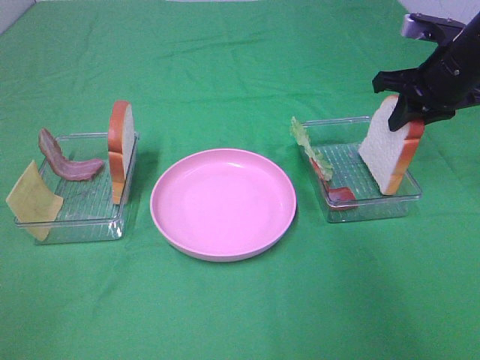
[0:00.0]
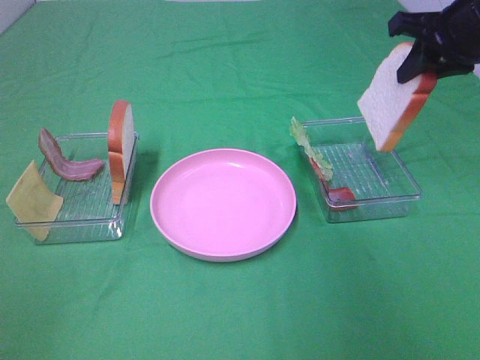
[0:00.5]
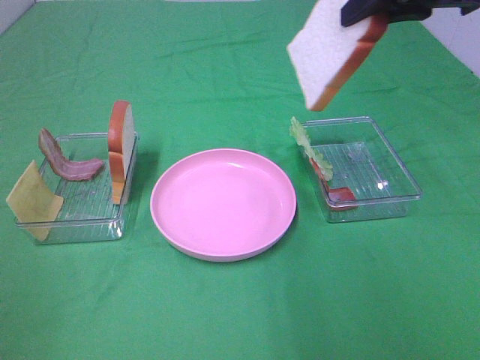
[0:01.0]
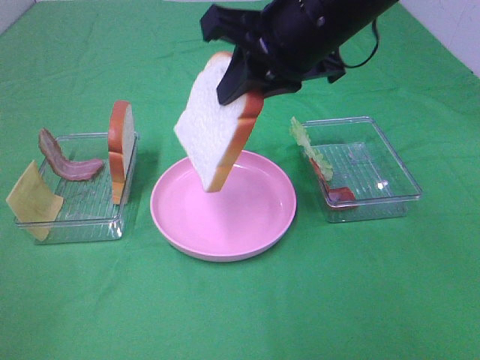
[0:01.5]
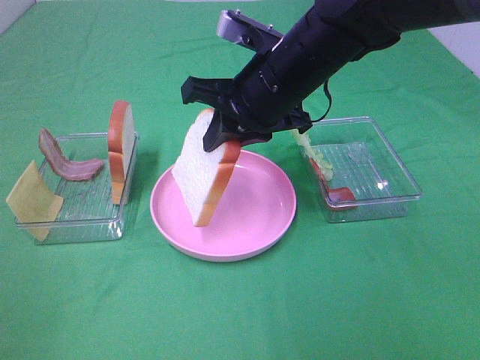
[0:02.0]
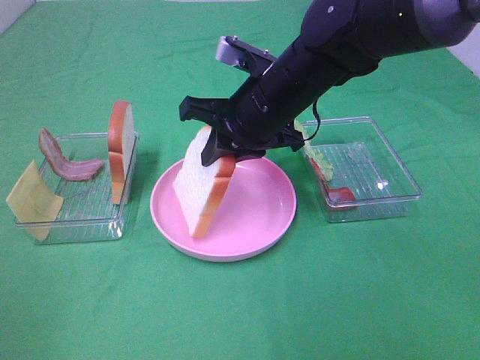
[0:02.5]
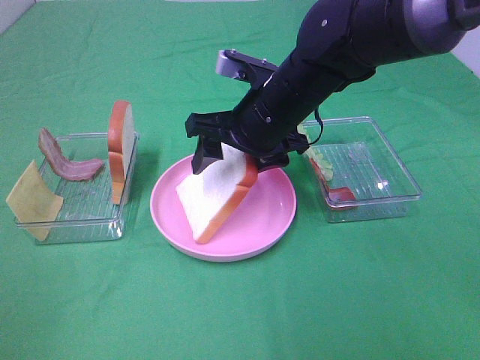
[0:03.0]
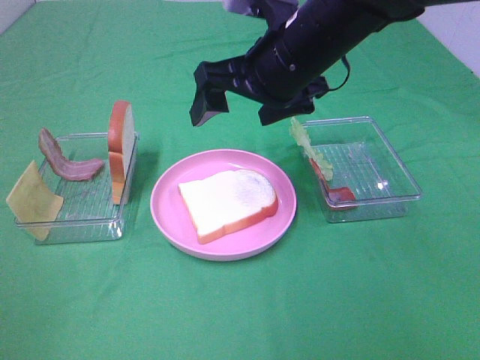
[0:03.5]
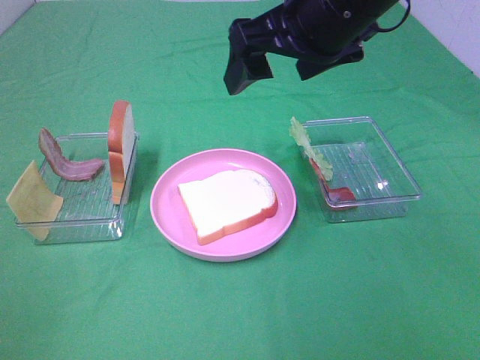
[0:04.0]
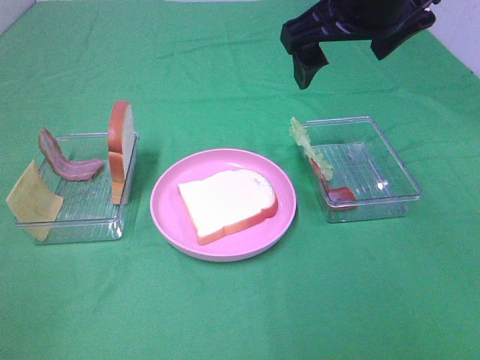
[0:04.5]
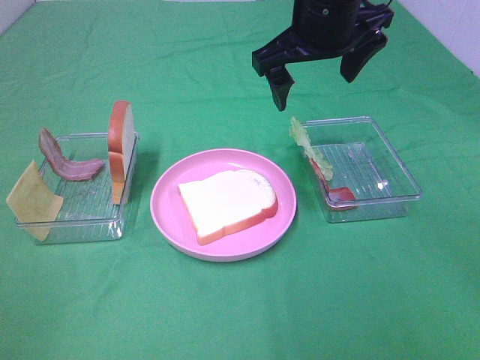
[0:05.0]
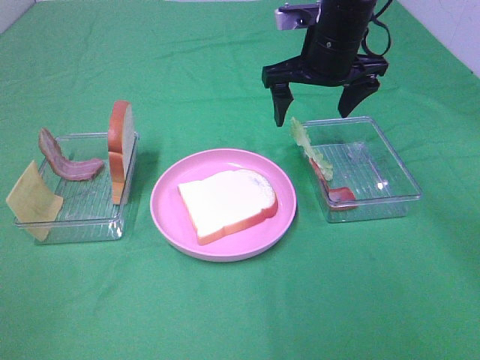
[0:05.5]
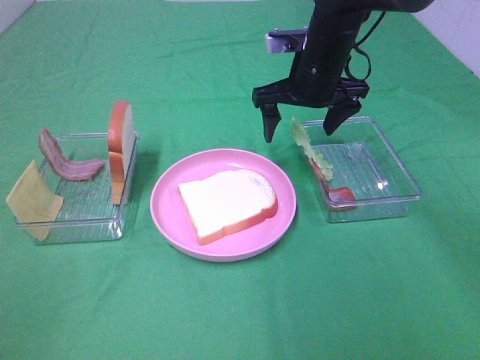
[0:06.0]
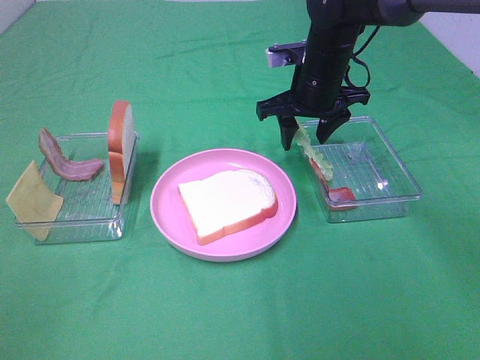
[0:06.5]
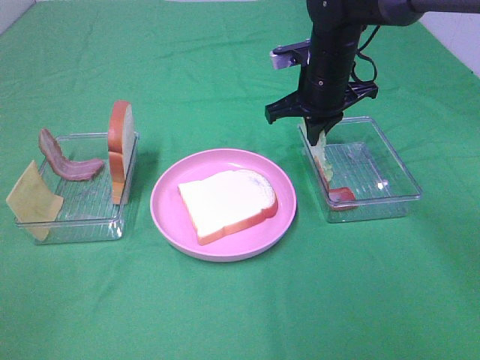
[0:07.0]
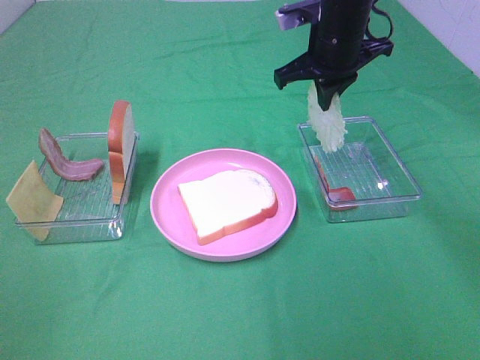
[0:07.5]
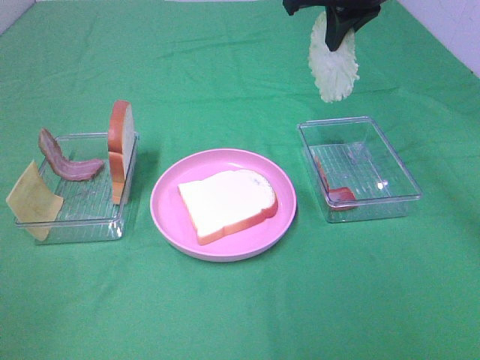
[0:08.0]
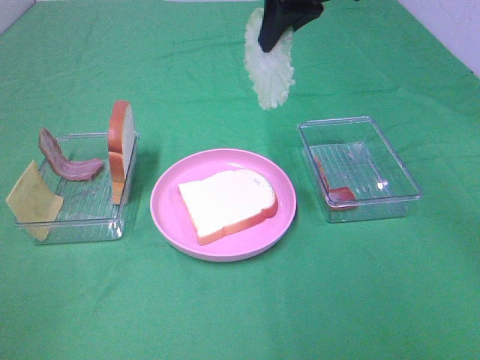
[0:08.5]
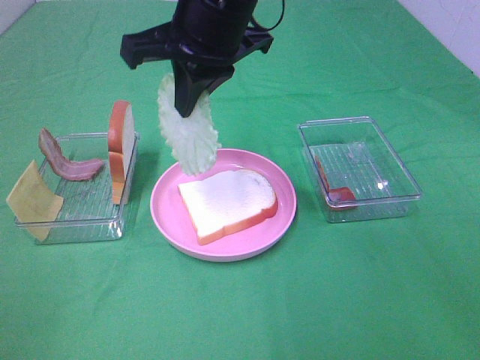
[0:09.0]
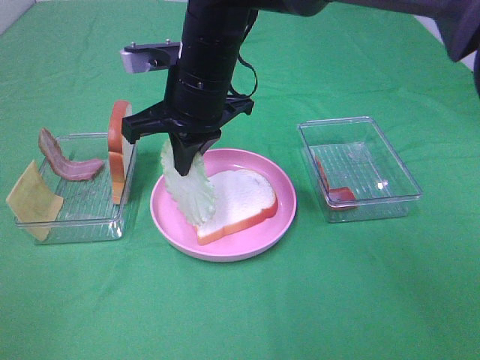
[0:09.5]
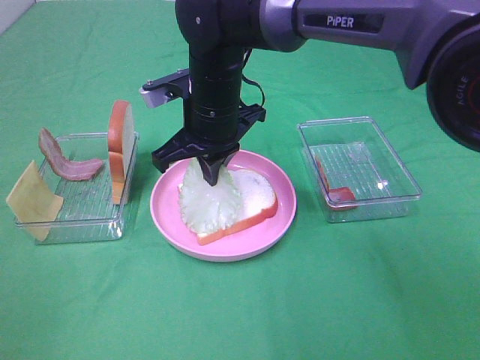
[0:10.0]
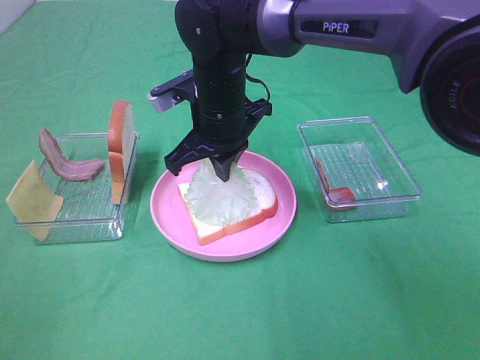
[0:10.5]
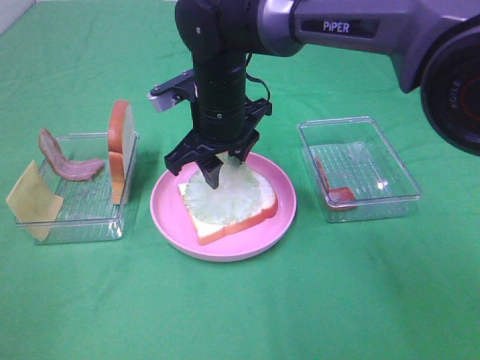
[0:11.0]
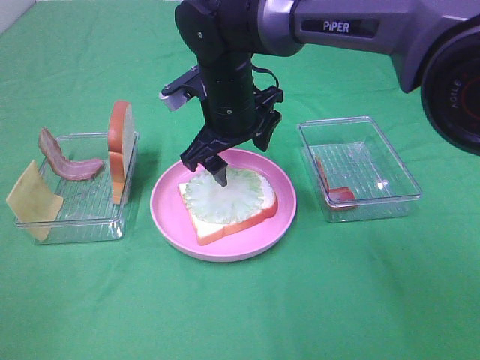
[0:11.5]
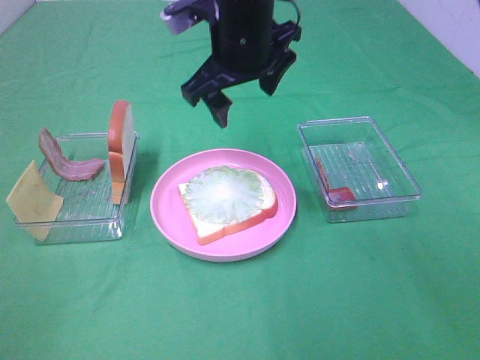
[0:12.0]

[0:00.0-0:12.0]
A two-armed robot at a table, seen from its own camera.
Task of the whole recording: Make sandwiches.
Step, 0:00.0 to 0:03.5: Right hand:place the bread slice on the plate.
Step, 0:04.0 to 0:06.5: Right hand:grab the lettuce slice.
Step, 0:07.0 to 0:11.0: Right hand:place the lettuce slice on the bread slice.
0:00.0 to 0:02.0: The right gripper heads to the left, covering some 20 cm.
0:02.0 to 0:04.0: The right gripper travels upward by approximately 10 cm, and opens.
0:04.0 to 0:06.0: The right gripper travels forward and downward by roughly 20 cm.
0:06.0 to 0:08.0: The right gripper shifts roughly 15 cm upward, and closes its fingers.
0:08.0 to 0:10.0: The right gripper is displaced to the left and downward by some 20 cm.
0:10.0 to 0:12.0: The right gripper heads upward, covering roughly 10 cm, and opens up.

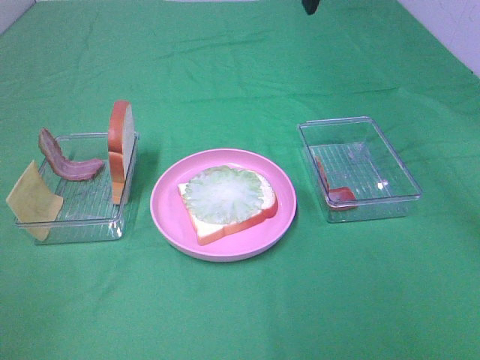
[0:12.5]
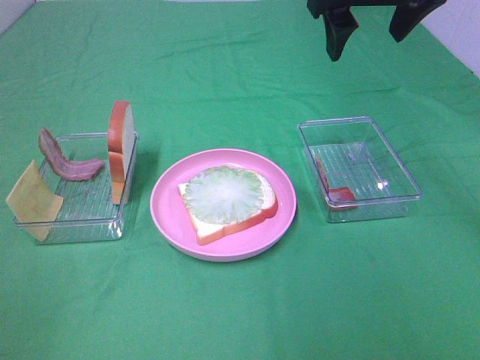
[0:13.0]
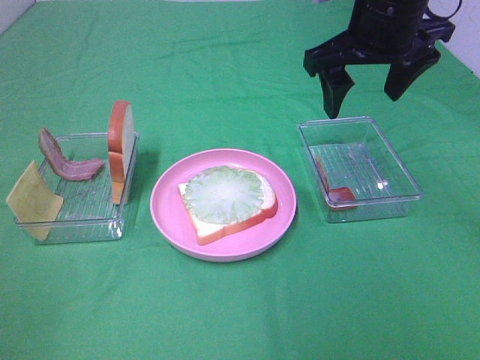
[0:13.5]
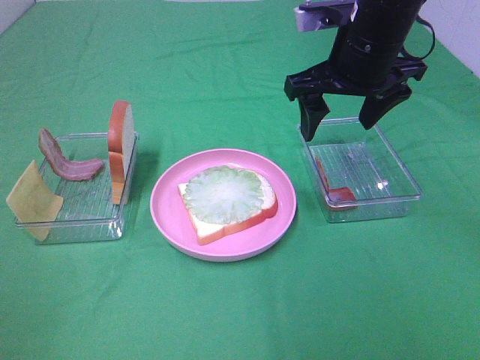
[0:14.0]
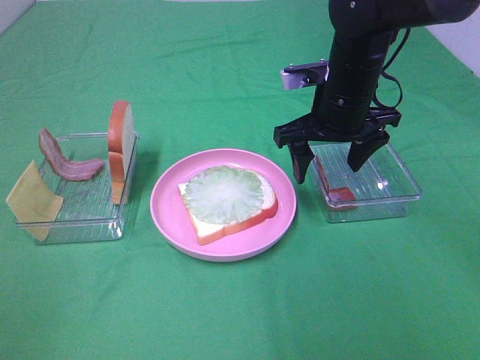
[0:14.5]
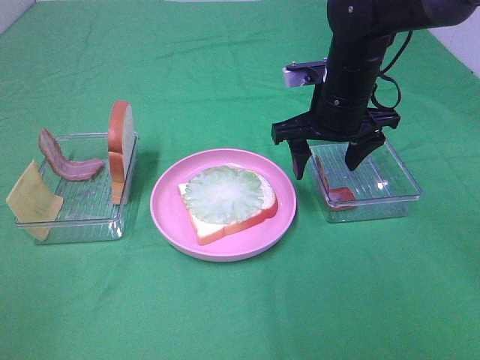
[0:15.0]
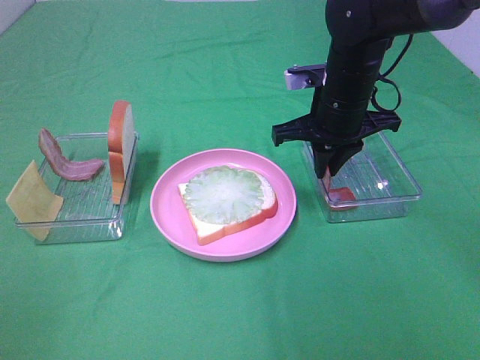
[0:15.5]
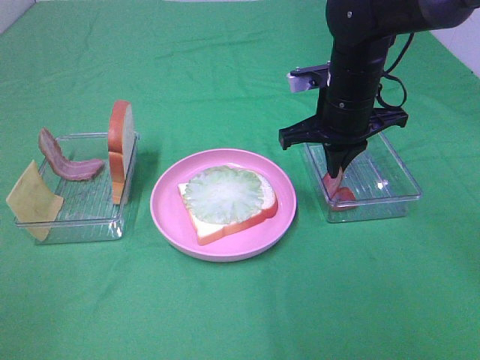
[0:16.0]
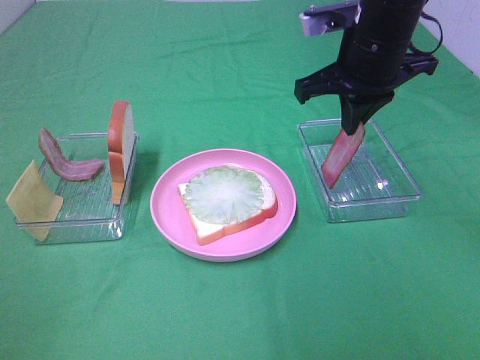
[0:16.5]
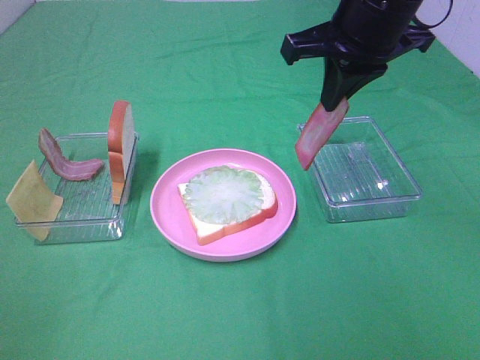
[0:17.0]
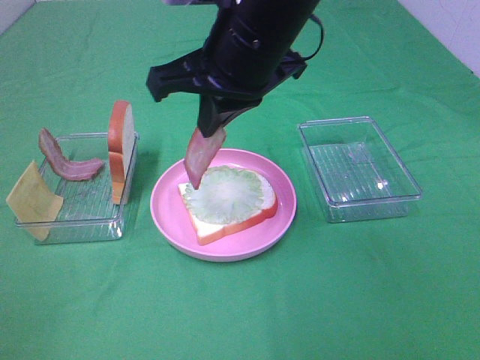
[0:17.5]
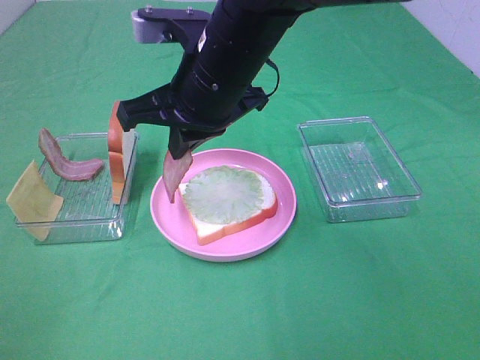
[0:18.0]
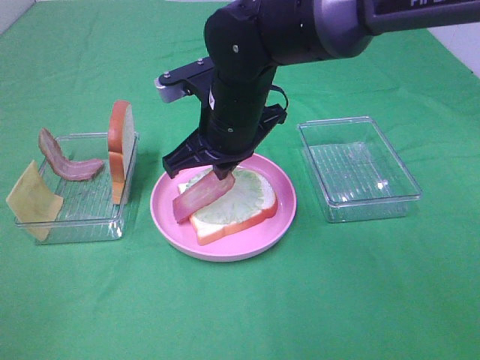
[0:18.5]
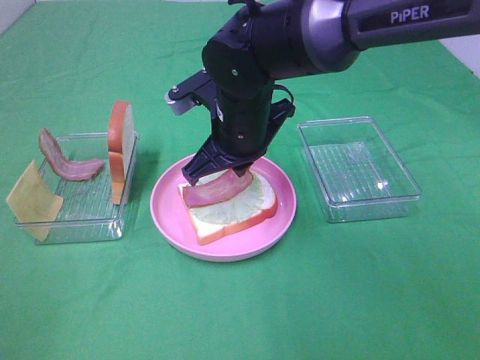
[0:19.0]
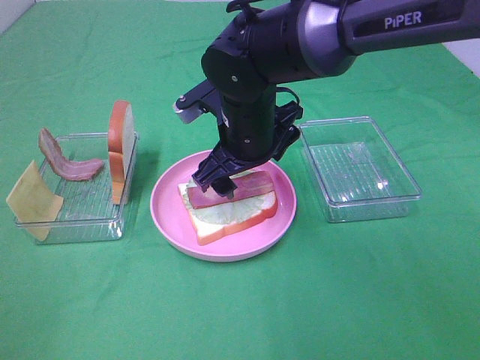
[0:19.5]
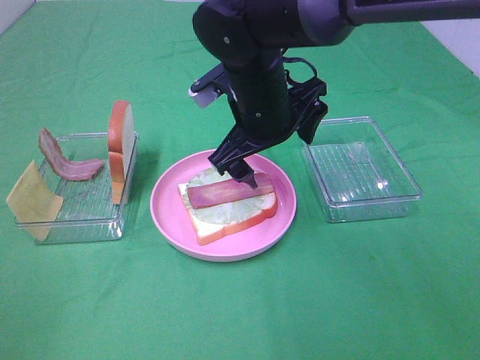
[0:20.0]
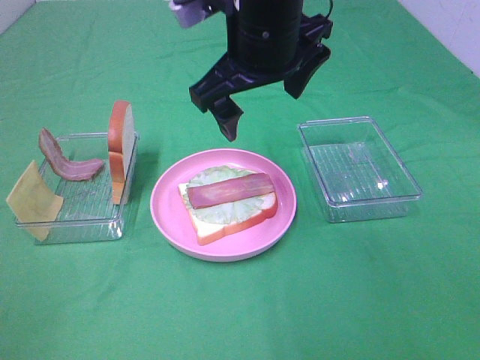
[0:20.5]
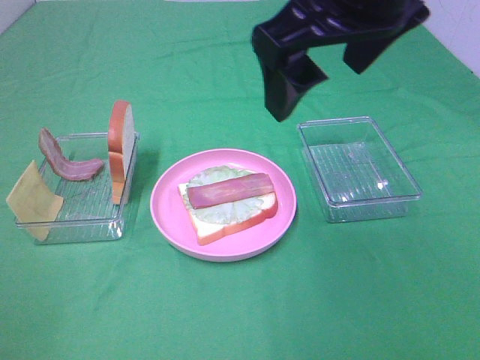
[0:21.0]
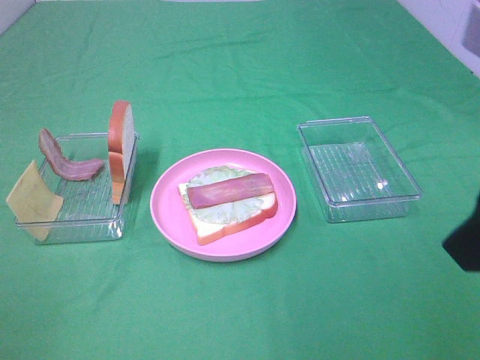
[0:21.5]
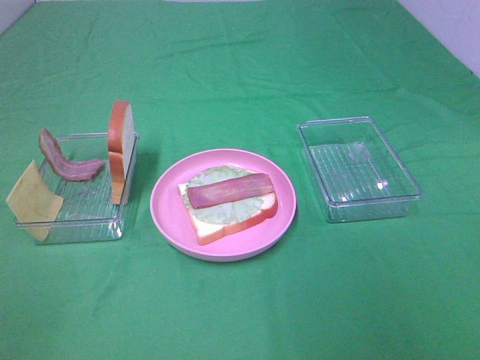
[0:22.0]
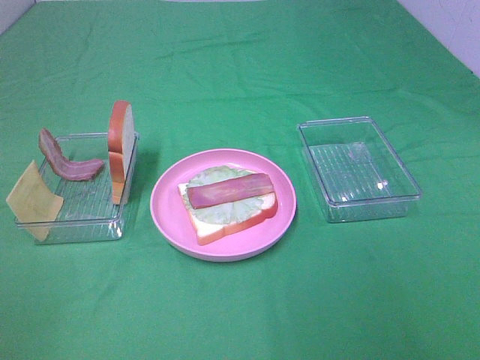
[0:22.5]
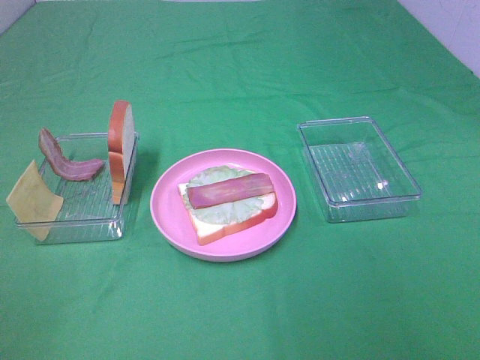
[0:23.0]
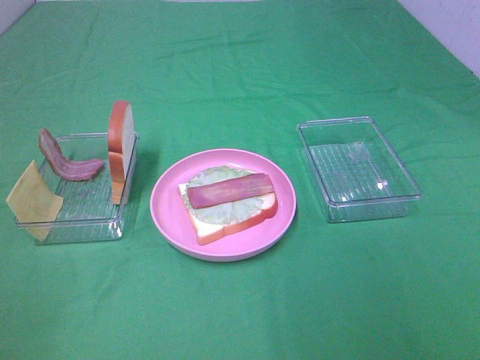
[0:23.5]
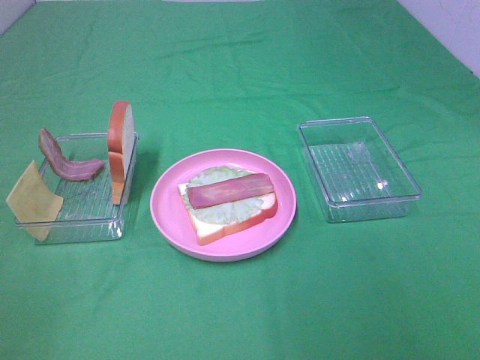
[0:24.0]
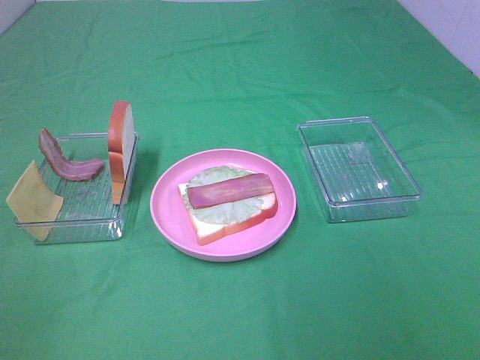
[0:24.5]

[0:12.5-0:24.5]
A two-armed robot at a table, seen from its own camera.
Task of the whole recording: Make sandwiches.
Step, 0:12.5 to 0:15.5: Right hand:grab the bacon.
Step, 0:16.0 to 0:19.5: Right hand:place bacon on lettuce slice.
0:12.5 to 0:14.5: The right gripper travels downward by approximately 20 cm.
0:14.5 to 0:16.5: The right gripper moves upward, some 10 cm, and closes up.
0:16.5 to 0:18.5: The right gripper goes some 15 cm to the left and downward.
0:18.5 to 0:20.5: The right gripper shifts approximately 10 cm upward, and opens up.
0:20.5 to 0:22.5: The right gripper travels backward and to the right by roughly 40 cm.

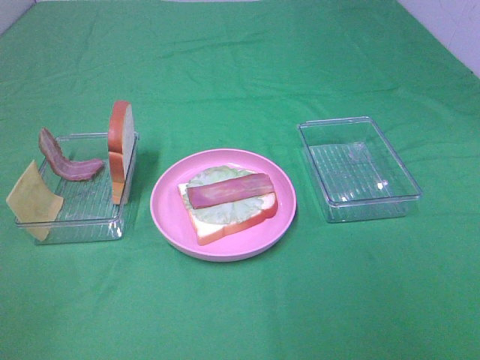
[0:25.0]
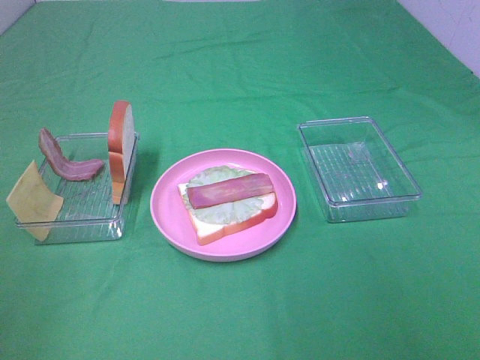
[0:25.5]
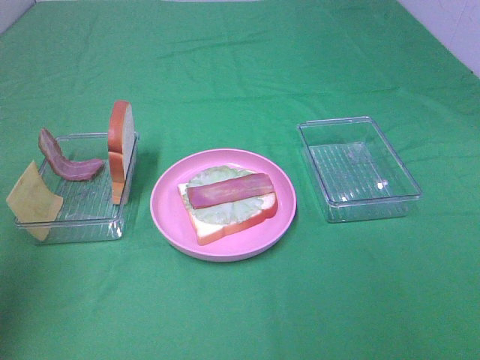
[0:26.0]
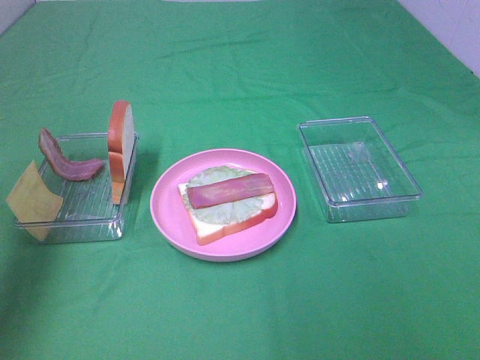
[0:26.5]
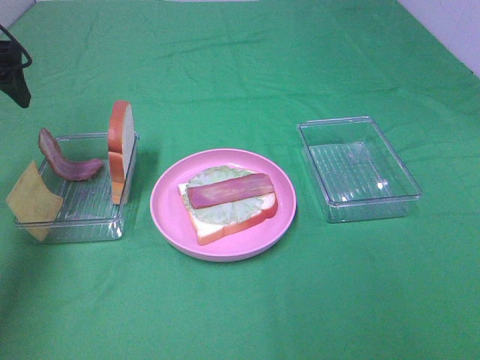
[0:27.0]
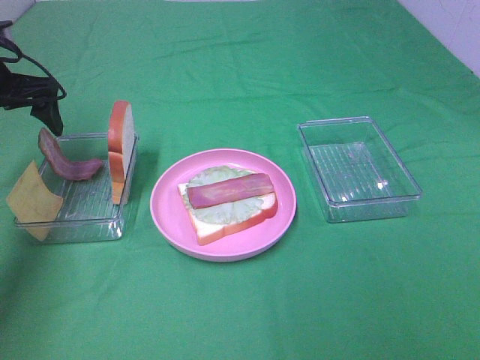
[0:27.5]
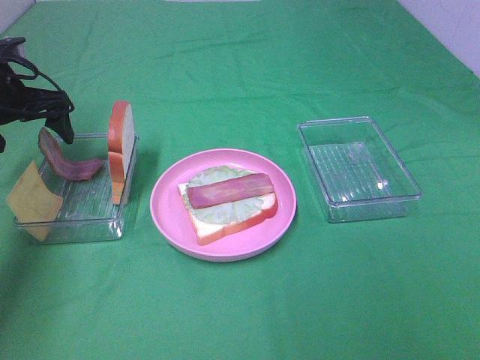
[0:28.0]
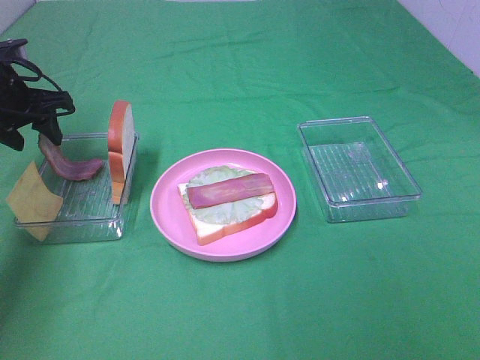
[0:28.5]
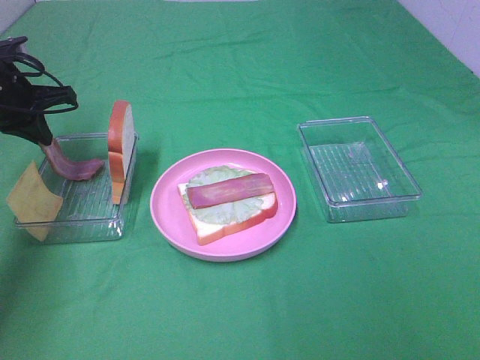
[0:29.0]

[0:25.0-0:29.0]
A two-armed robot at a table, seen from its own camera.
Task of the whole recording: Make sandwiches.
Step, 0:25.0 to 0:28.5: Left hand:grab the bacon.
0:25.0 to 0:27.0: The left gripper heads forward, covering roughly 40 cm.
0:27.0 to 0:29.0: The left gripper shifts some 10 cm downward and forward, and closes up.
